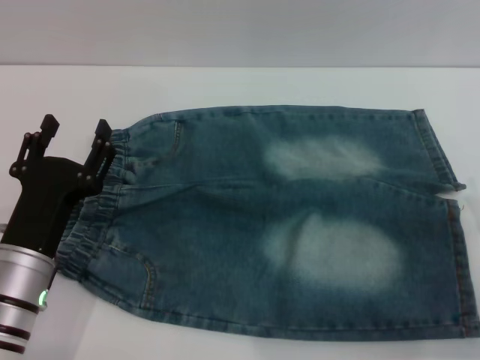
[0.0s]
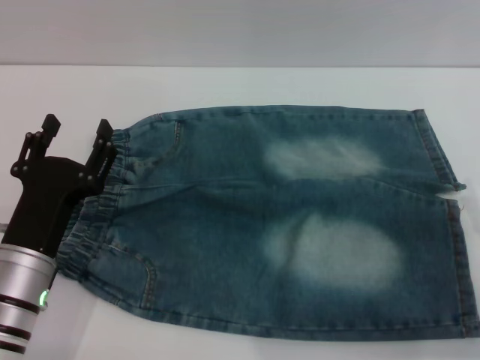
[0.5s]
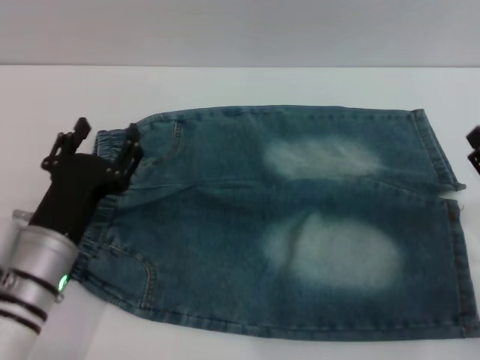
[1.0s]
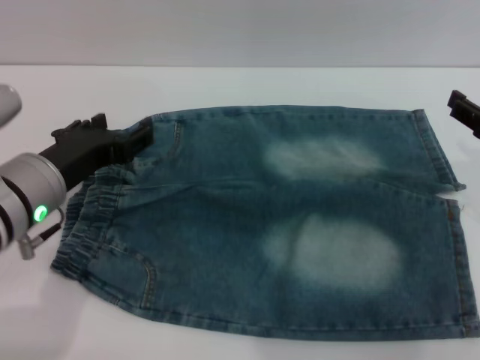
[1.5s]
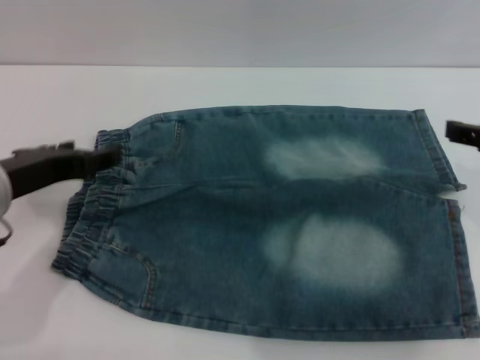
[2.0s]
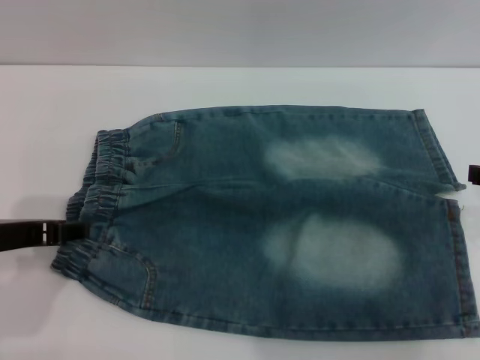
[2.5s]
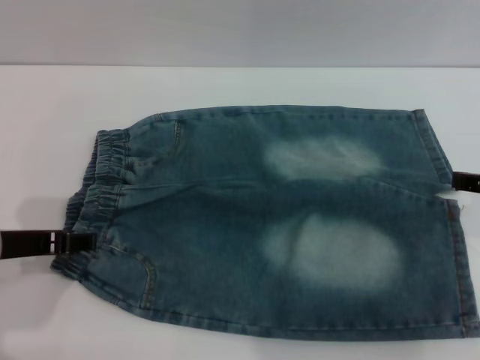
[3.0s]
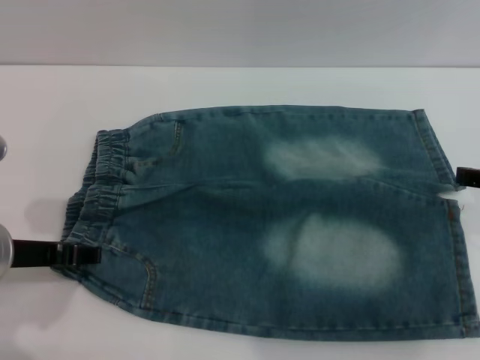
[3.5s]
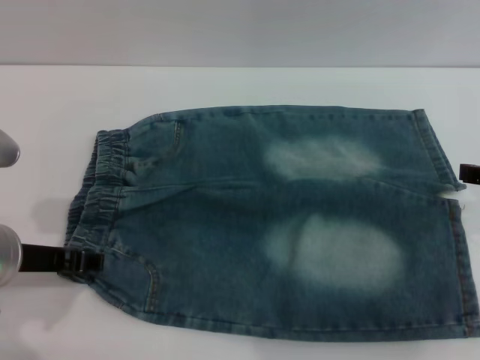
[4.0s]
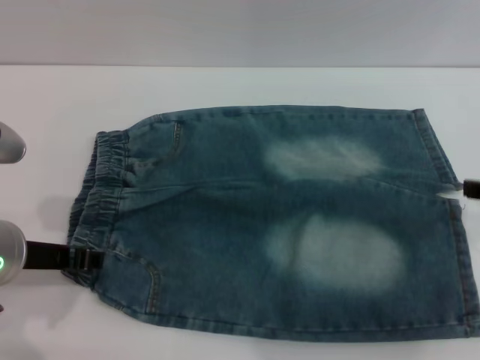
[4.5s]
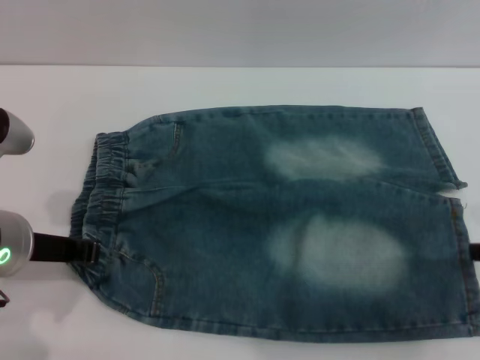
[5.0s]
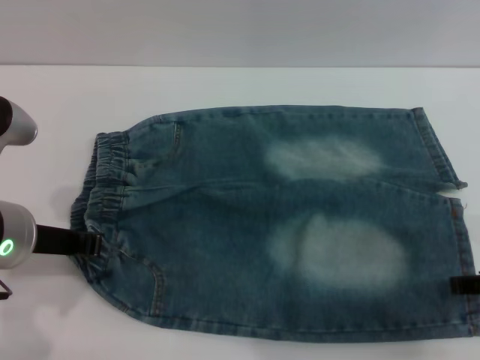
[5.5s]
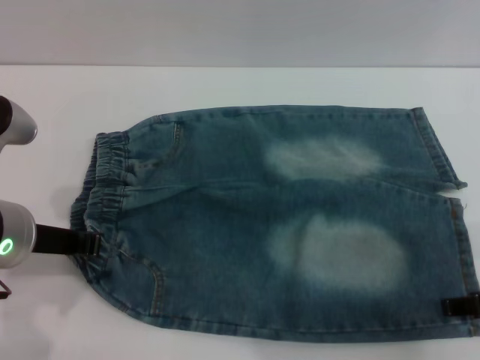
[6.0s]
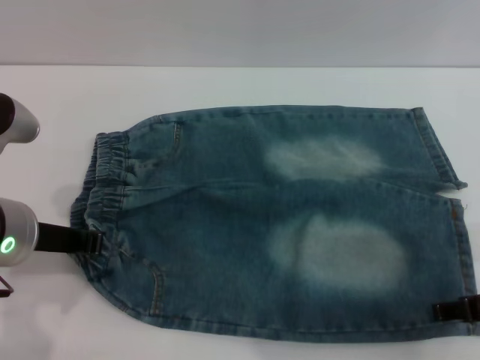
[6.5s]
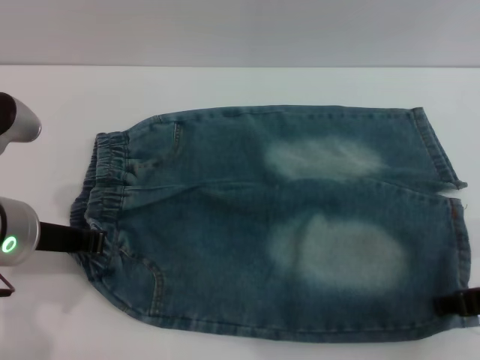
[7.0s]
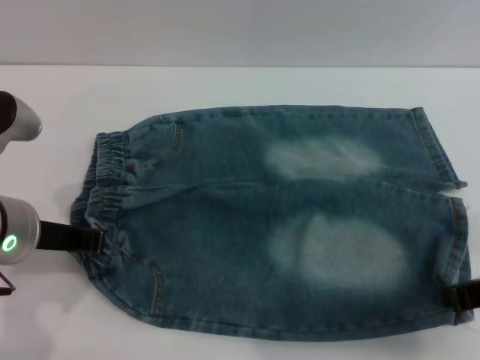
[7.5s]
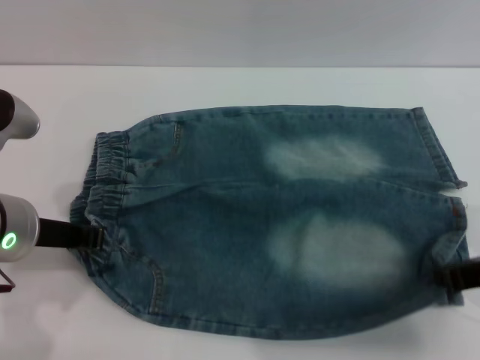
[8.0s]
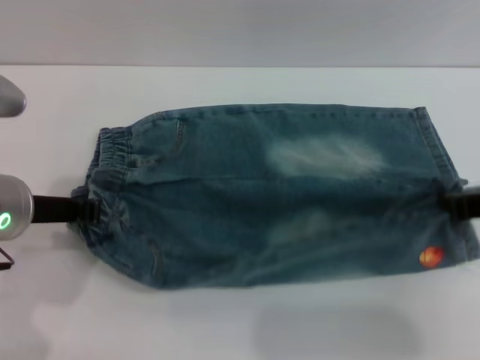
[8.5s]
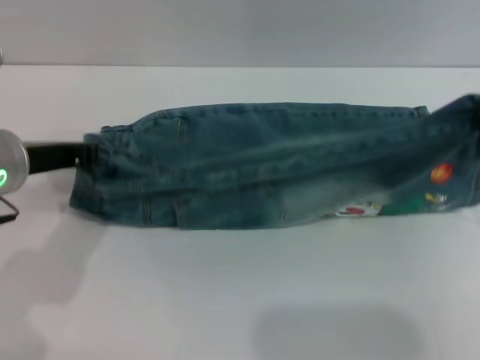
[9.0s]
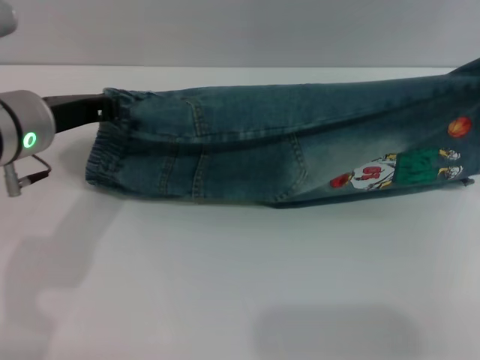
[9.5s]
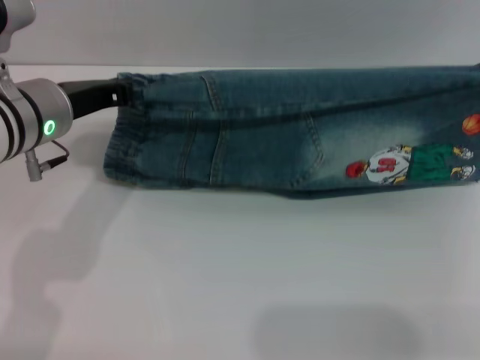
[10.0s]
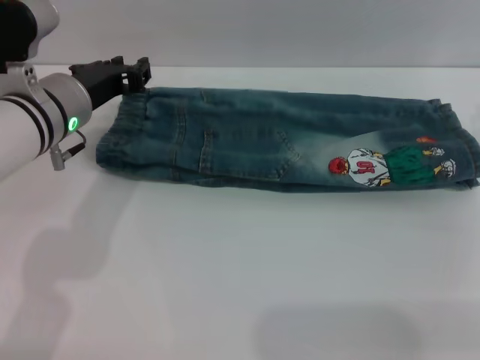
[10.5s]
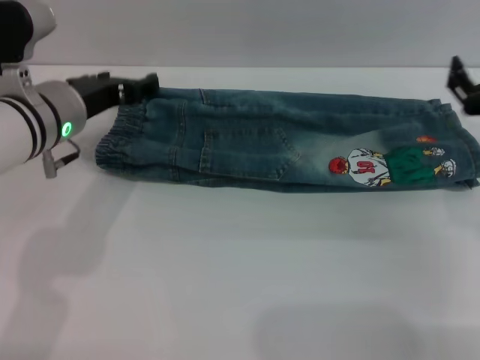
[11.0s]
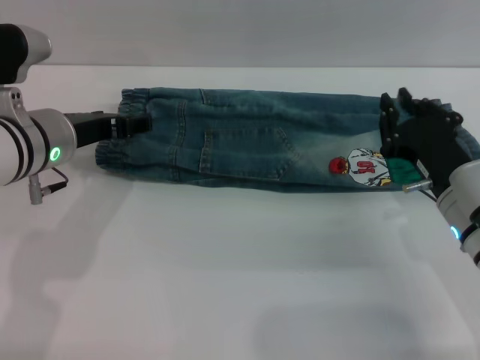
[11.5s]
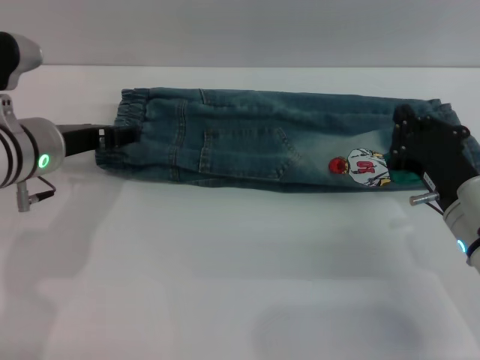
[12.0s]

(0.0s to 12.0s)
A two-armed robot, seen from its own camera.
Step, 0.0s - 11.0s: Fold the bottom of the pants upward with both grippers.
0.0s - 2.0s: The two grippers go roughly 15 cm upward.
4.0s - 6.0s: The right gripper shifts by some 5 cm. The left gripper closes its fingers.
6.0s - 8.0s: The right gripper closes its fingers.
8.0s - 10.0s: The left gripper shifts approximately 10 cm forward. The right gripper moves forward and to the right, about 10 cm.
10.0s - 12.0s: The right gripper heads downward and to the left, covering about 15 cm, and opens, then closes once more. The left gripper opens up.

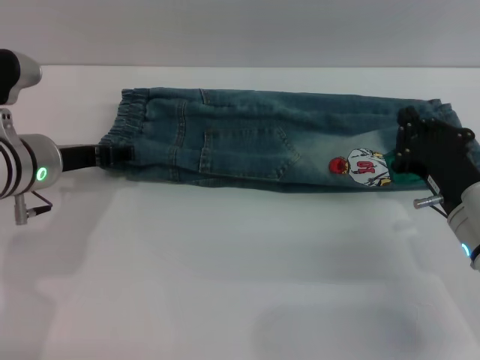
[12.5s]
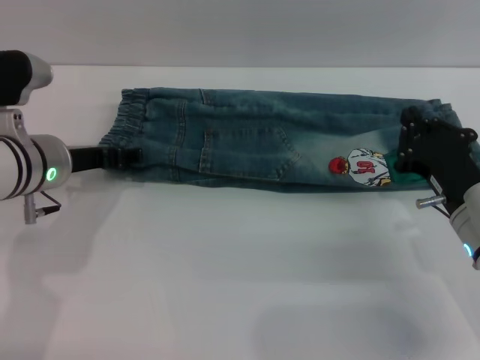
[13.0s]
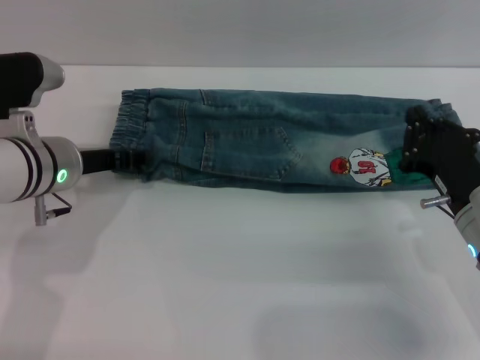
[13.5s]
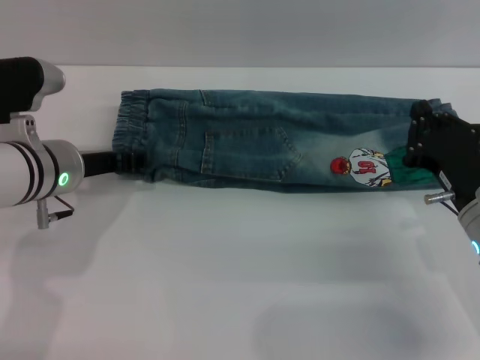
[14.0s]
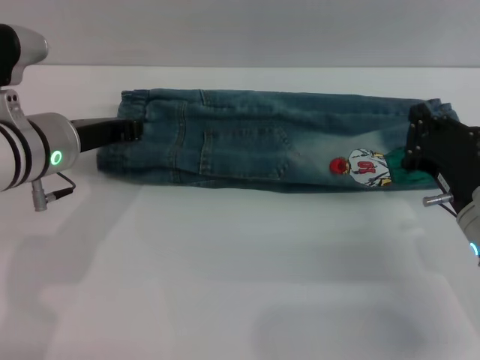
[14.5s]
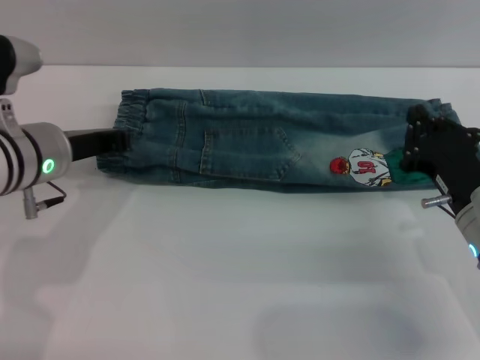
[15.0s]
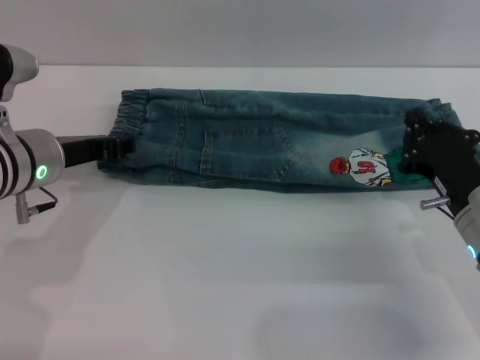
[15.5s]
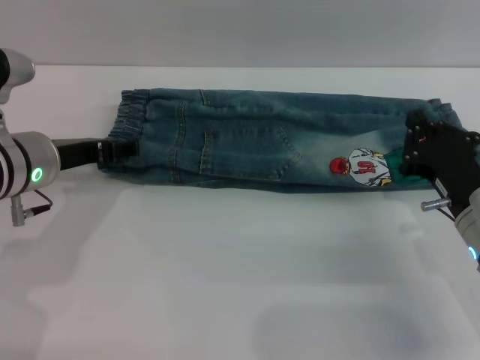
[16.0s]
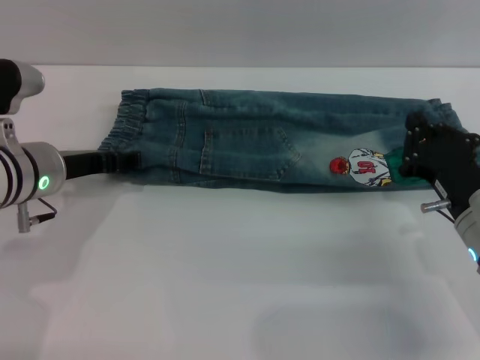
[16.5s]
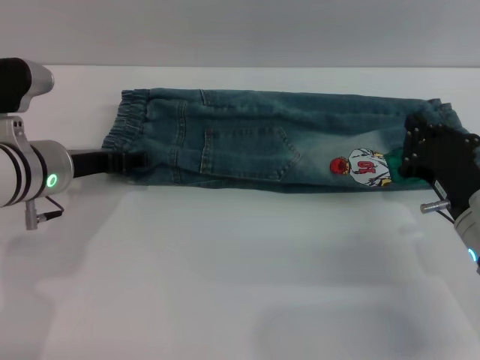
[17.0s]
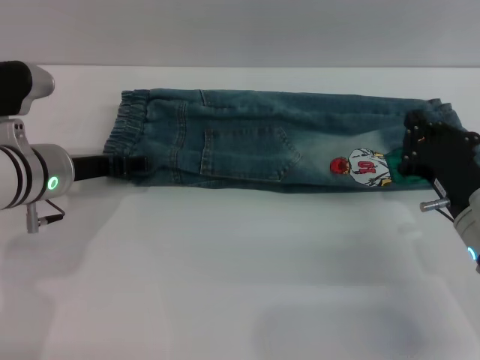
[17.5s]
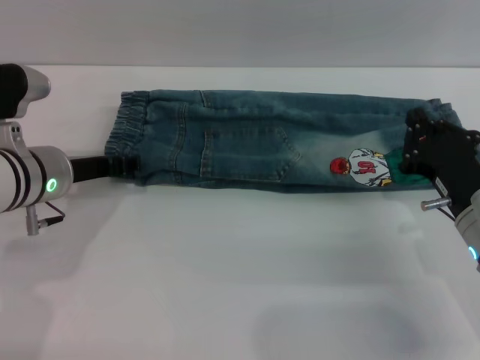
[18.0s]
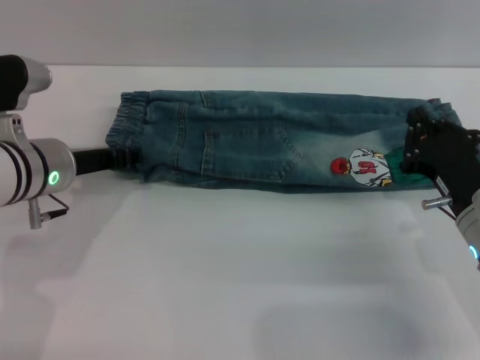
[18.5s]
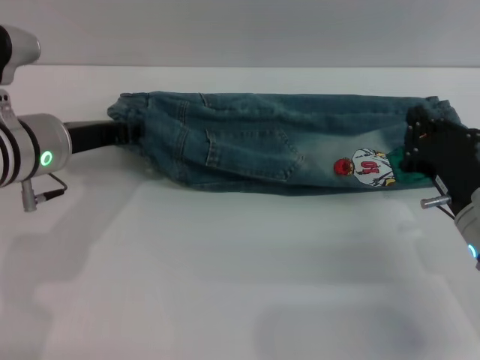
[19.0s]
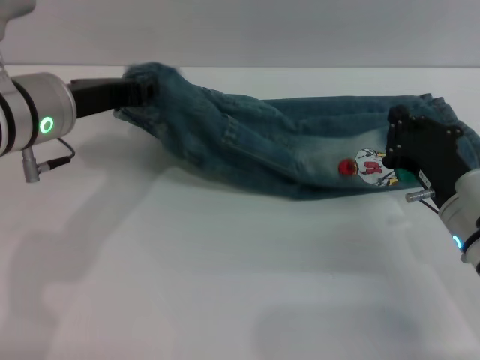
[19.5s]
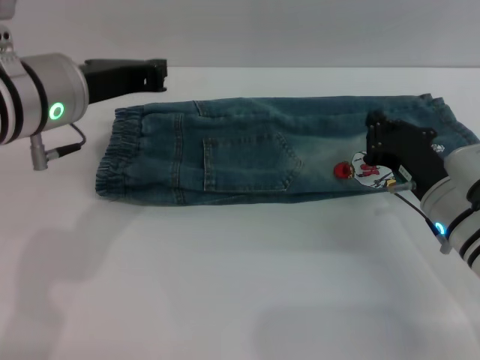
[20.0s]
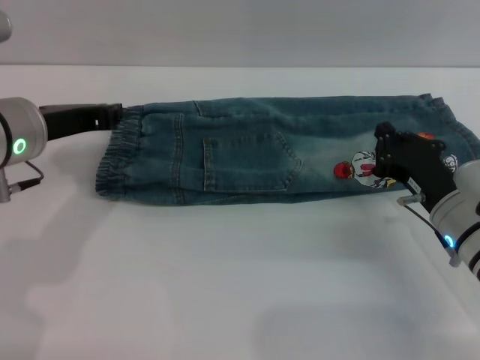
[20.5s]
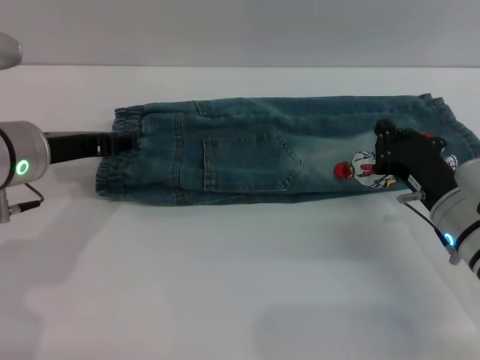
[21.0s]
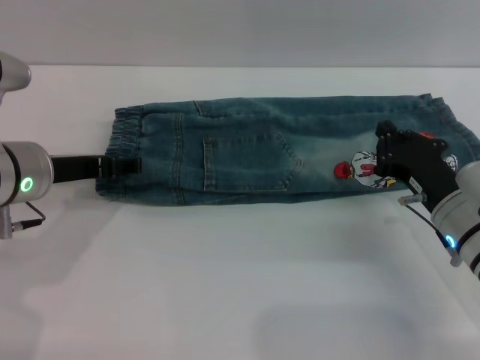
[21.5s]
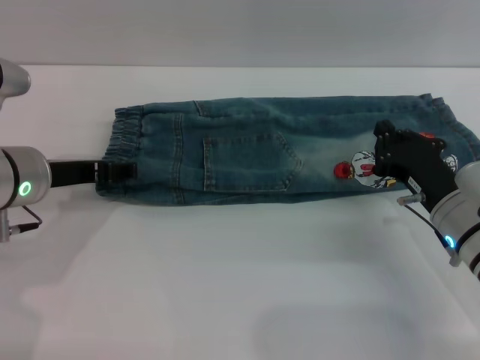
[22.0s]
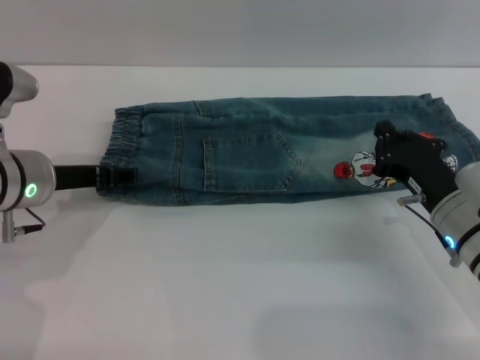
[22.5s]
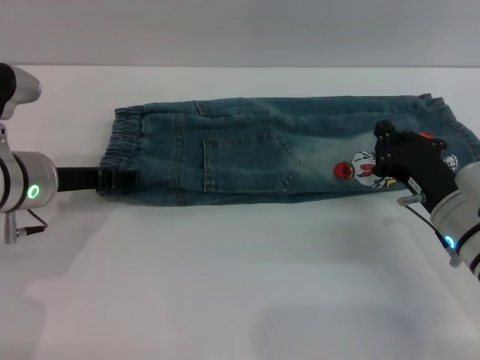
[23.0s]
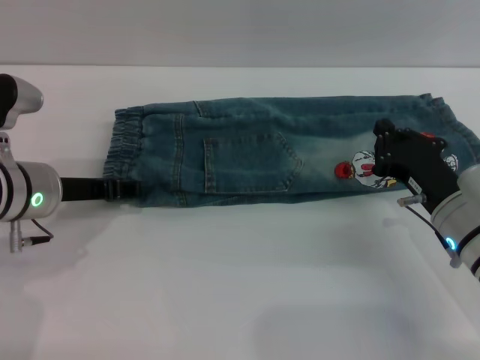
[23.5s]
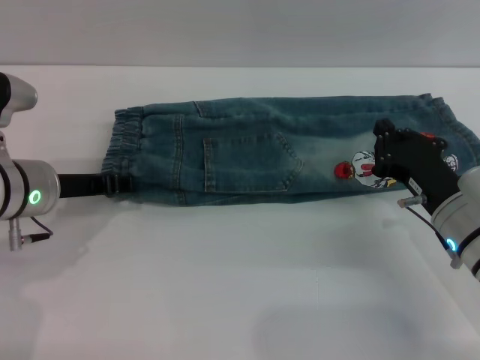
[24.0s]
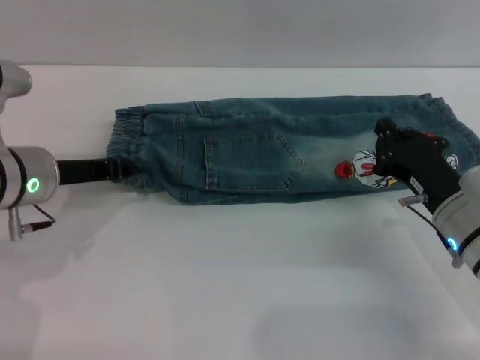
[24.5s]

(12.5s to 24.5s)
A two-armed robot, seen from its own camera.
12.5s - 14.5s: The left gripper closes.
14.5s - 16.5s: The left gripper opens its fingers.
16.5s - 18.5s: The left gripper closes its fingers.
18.5s - 20.5s: The left gripper moves upward, some 5 cm, and closes.
20.5s - 22.5s: The left gripper travels downward by some 5 cm, and opens.
22.5s - 24.5s: The left gripper closes up.

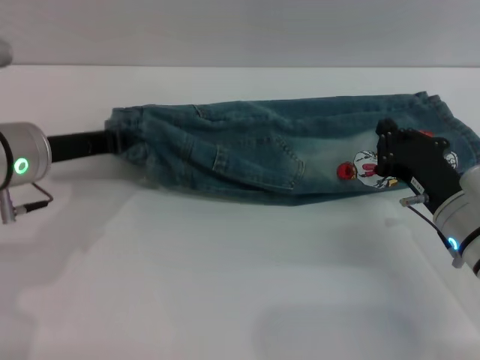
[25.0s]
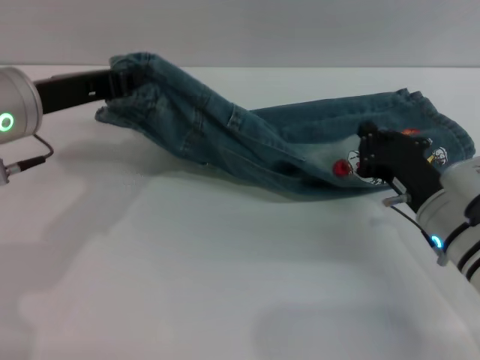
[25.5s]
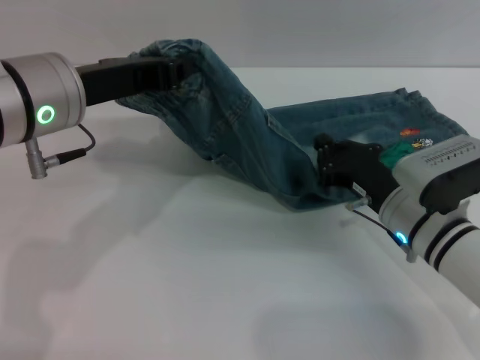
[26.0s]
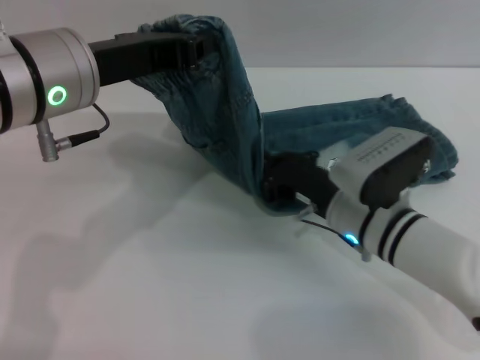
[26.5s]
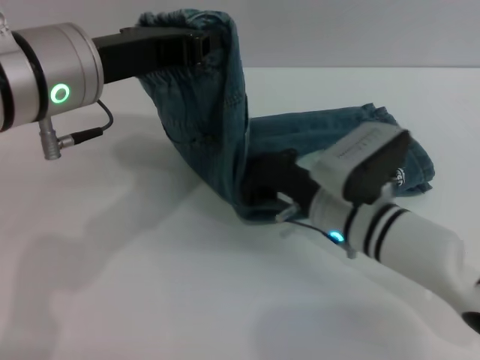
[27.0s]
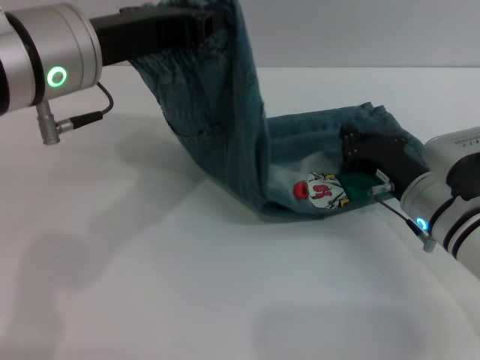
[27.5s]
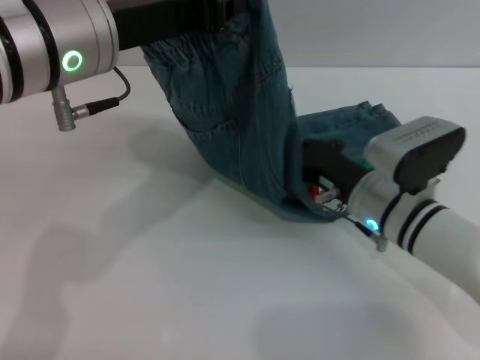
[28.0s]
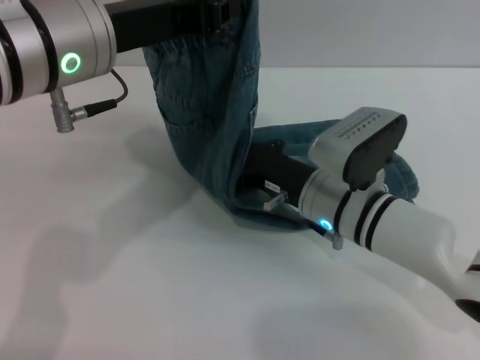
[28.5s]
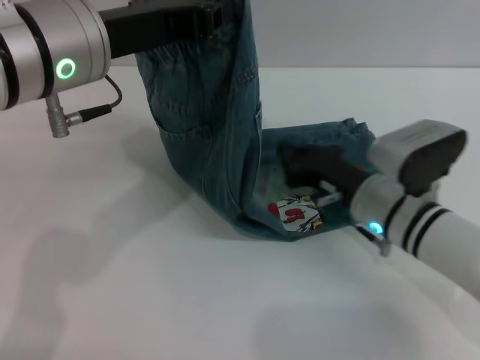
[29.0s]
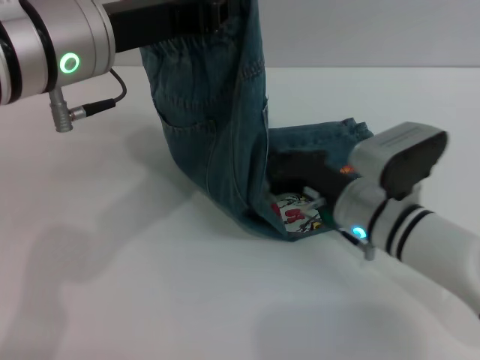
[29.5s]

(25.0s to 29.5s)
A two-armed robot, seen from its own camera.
25.0s - 27.0s: The right gripper is displaced to the left by roughly 10 cm, while the left gripper heads upward and to the right, covering some 10 cm.
27.0s - 29.5s: The right gripper swings left and right, about 10 cm each way, with 2 reversals.
